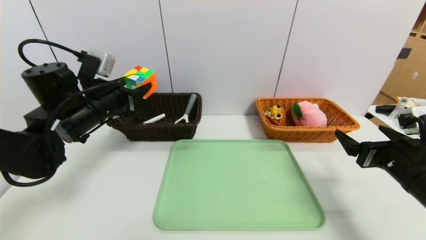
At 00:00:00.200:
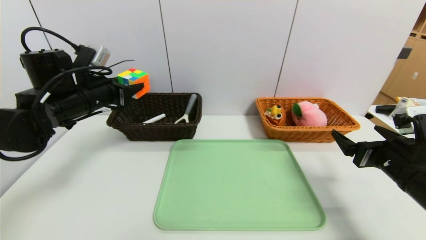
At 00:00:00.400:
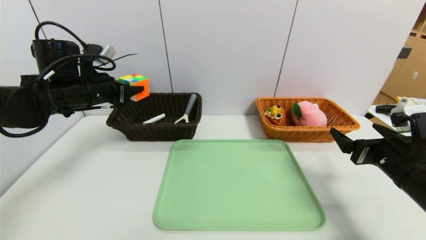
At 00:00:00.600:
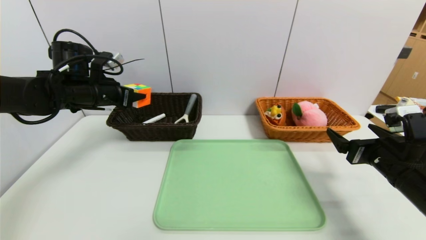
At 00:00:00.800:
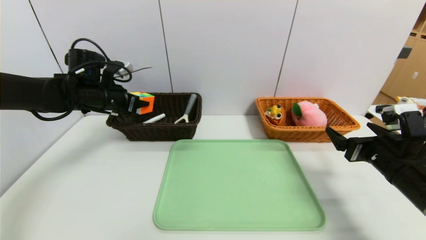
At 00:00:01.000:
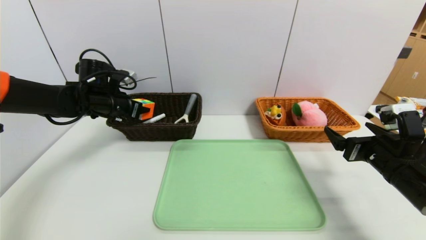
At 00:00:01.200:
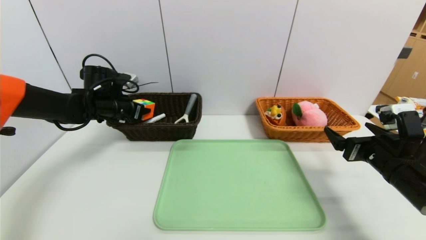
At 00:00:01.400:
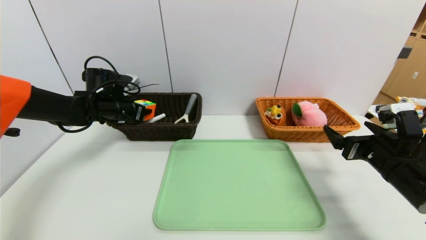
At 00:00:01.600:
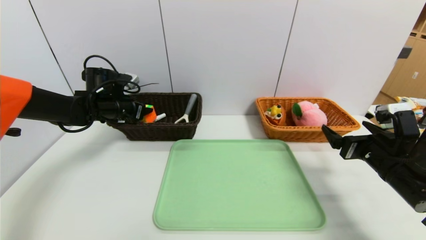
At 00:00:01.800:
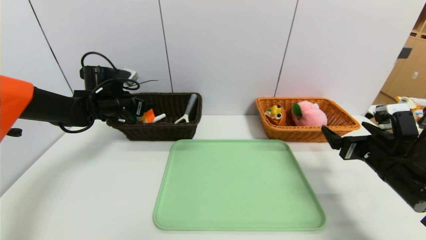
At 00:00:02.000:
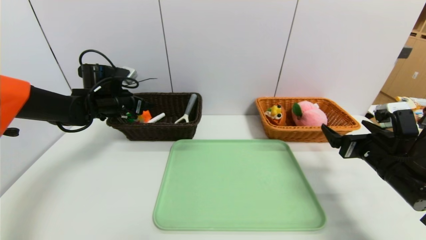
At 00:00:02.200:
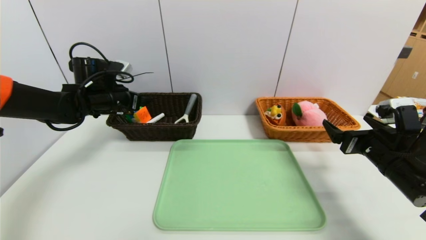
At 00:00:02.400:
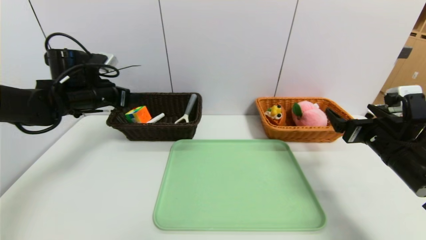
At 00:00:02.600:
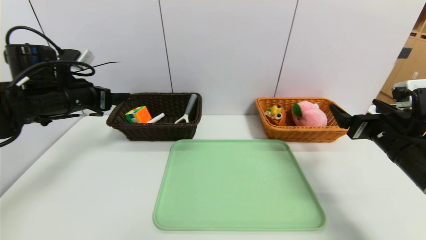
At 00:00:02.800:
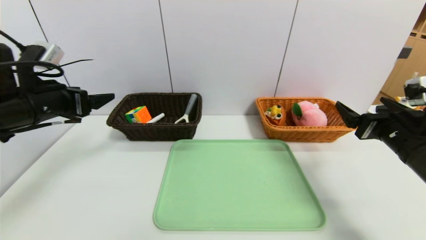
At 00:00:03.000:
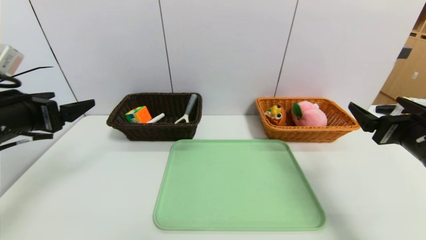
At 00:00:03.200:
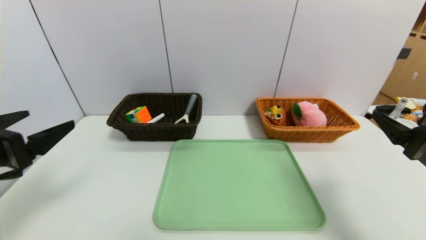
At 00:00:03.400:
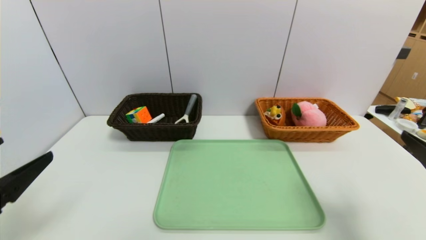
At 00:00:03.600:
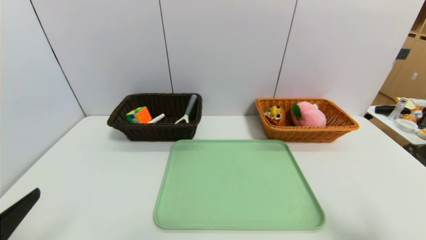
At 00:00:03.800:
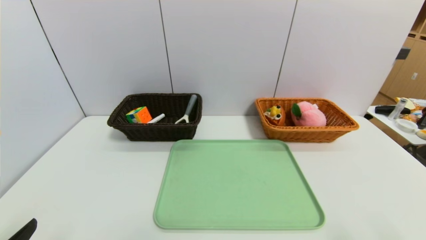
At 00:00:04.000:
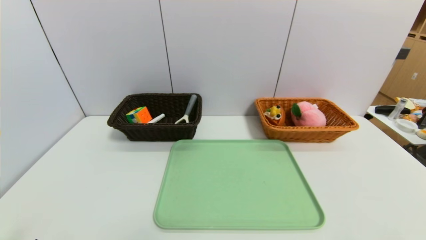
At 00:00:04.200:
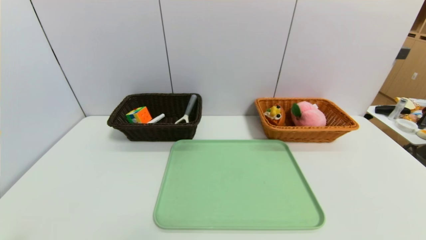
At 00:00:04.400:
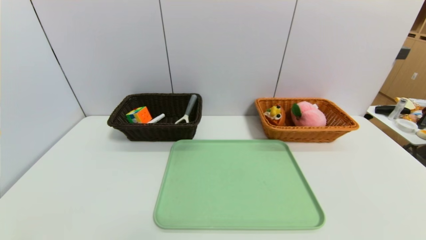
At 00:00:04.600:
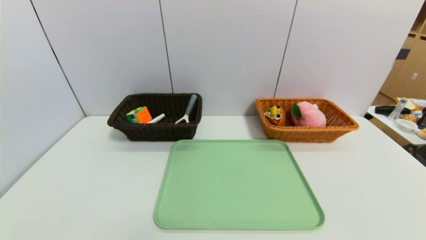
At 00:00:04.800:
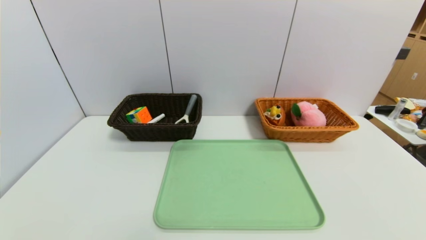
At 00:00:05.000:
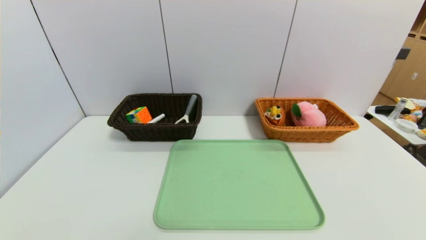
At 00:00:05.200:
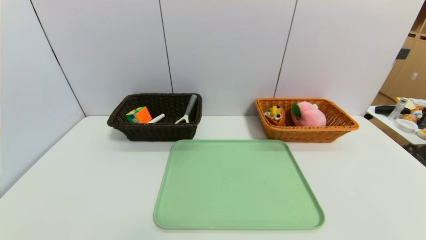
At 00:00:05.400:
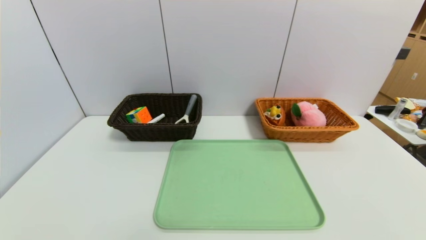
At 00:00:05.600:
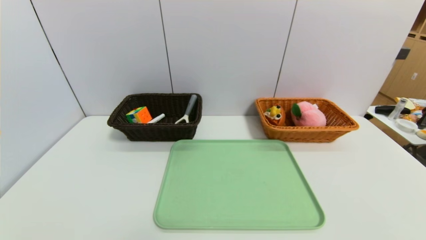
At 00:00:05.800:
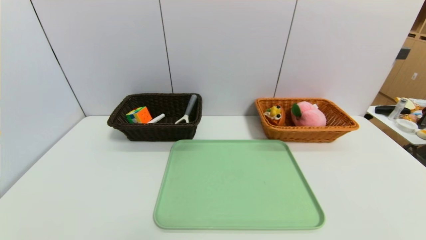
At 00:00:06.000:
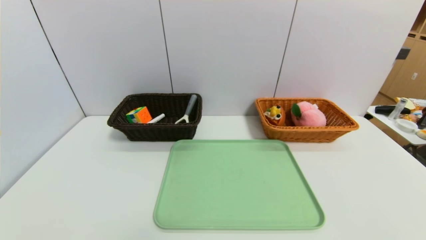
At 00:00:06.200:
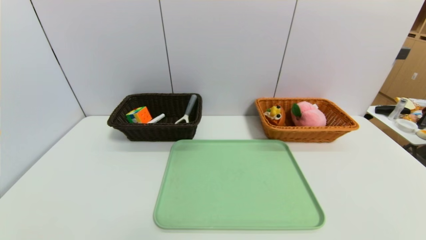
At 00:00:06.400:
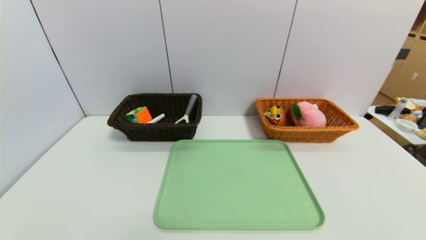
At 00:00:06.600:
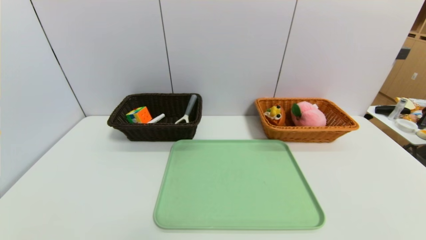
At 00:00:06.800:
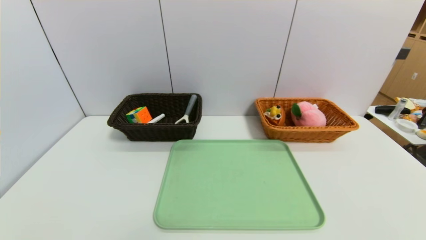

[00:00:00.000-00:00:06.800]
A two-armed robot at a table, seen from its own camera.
Task of the whole recording: place the food in the right basket with the right gripper, and place the non food items in the left basket with the left gripper.
00:00:00.000 to 00:00:01.400: The left gripper shifts approximately 10 cm forward.
00:00:01.400 to 00:00:02.800: The left gripper shifts approximately 20 cm backward and upward, and opens.
00:00:02.800 to 00:00:04.000: The right gripper goes approximately 25 cm backward. Meanwhile the left gripper goes approximately 30 cm backward and downward.
